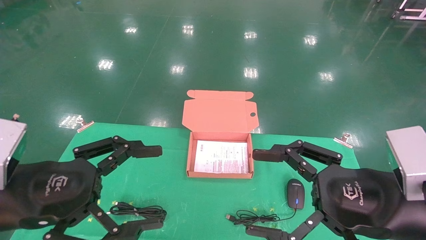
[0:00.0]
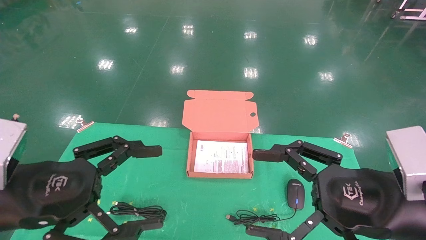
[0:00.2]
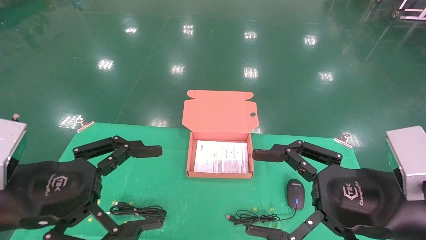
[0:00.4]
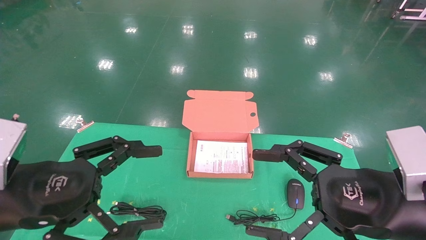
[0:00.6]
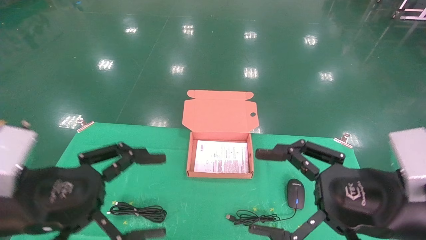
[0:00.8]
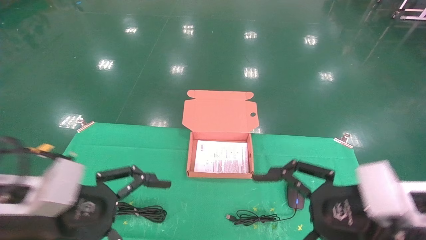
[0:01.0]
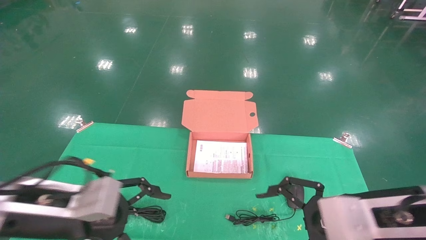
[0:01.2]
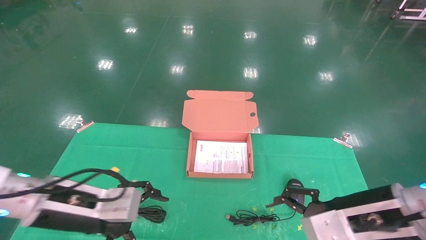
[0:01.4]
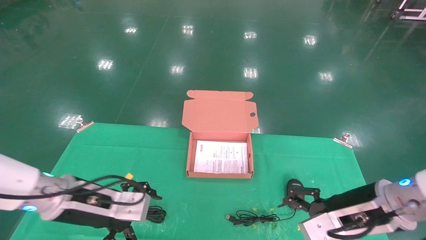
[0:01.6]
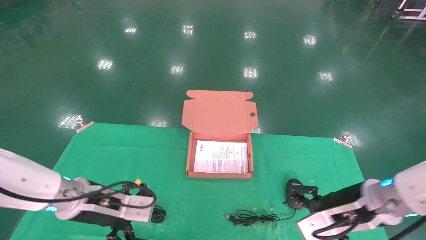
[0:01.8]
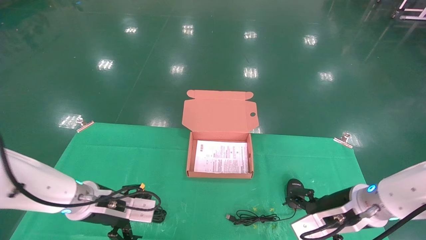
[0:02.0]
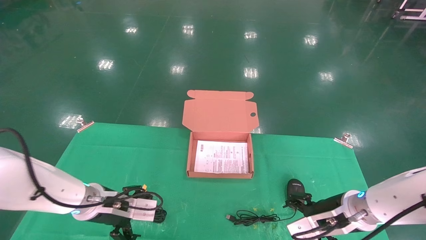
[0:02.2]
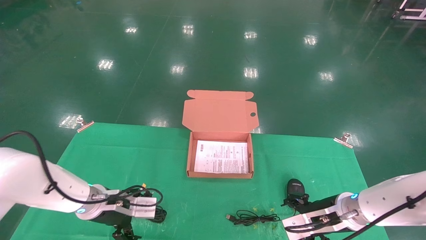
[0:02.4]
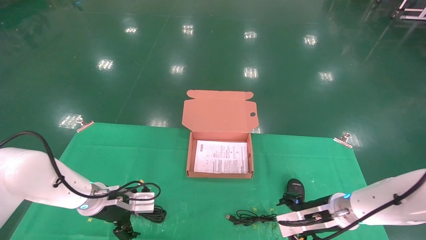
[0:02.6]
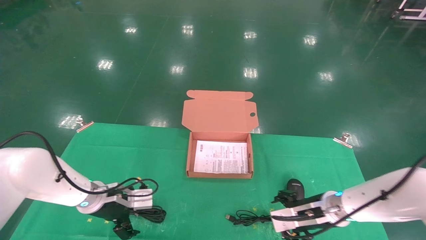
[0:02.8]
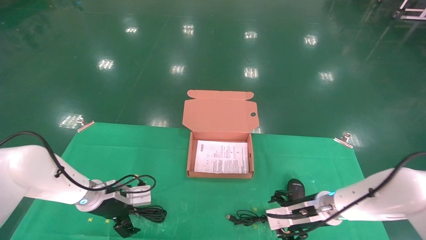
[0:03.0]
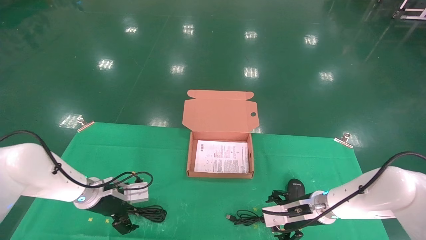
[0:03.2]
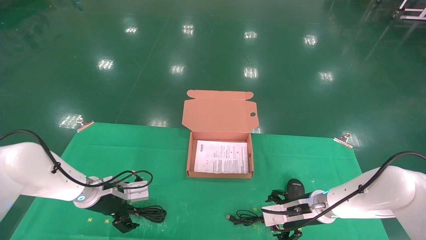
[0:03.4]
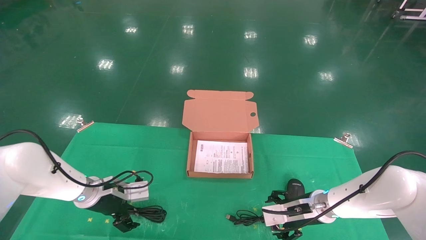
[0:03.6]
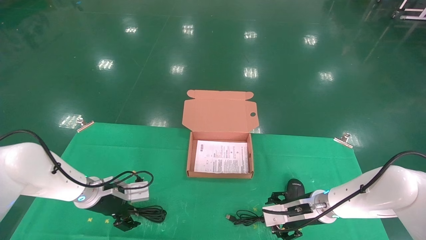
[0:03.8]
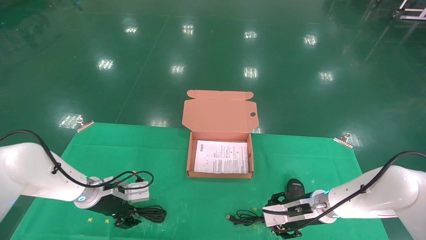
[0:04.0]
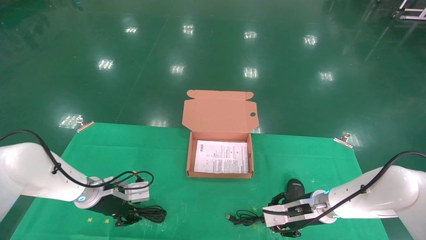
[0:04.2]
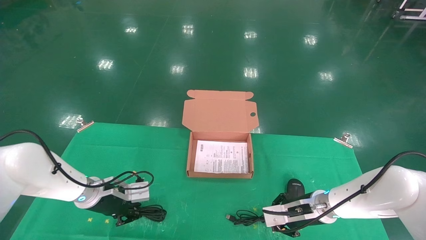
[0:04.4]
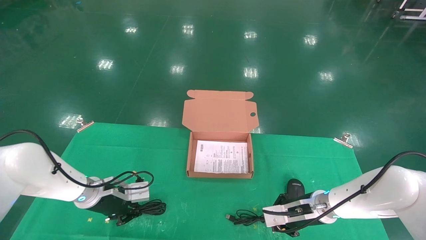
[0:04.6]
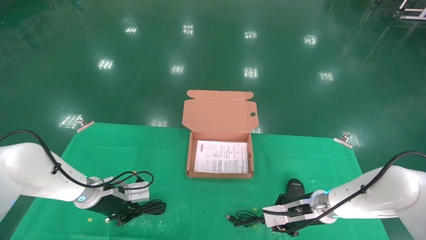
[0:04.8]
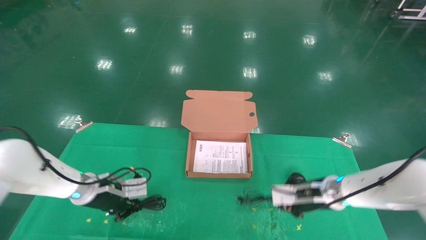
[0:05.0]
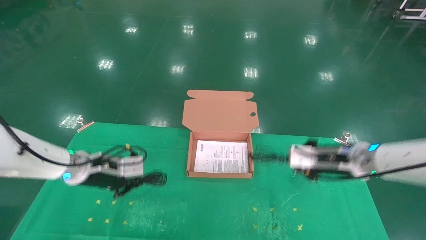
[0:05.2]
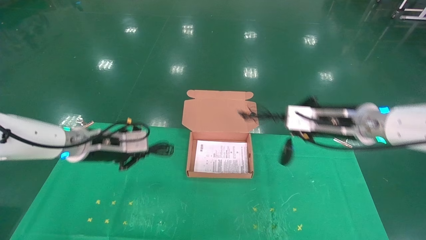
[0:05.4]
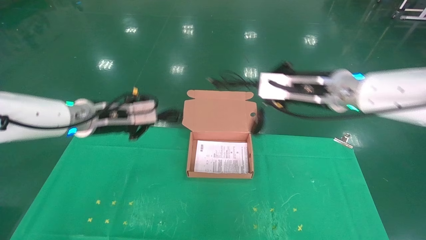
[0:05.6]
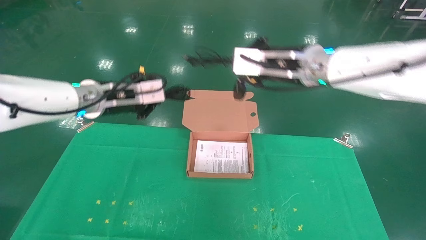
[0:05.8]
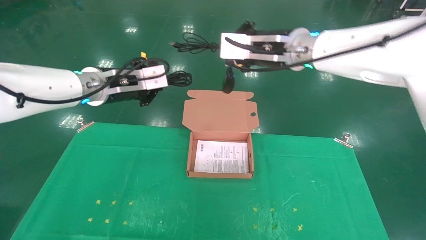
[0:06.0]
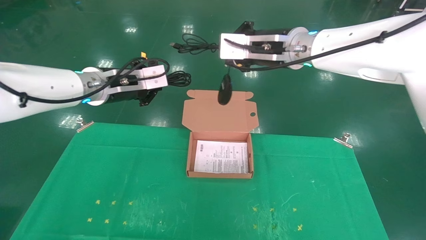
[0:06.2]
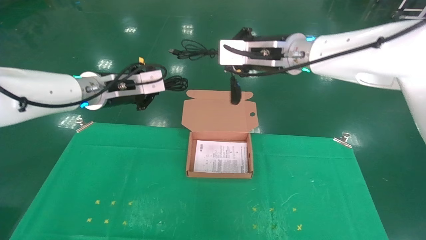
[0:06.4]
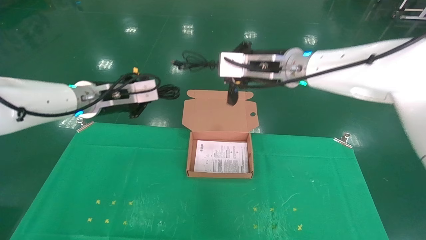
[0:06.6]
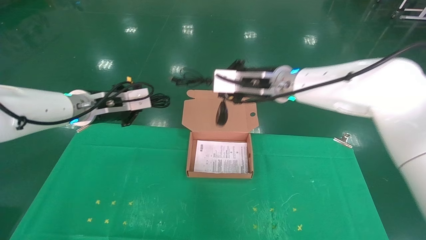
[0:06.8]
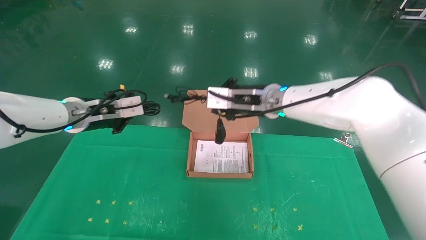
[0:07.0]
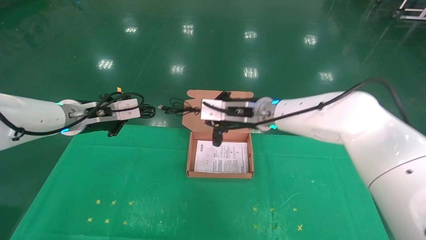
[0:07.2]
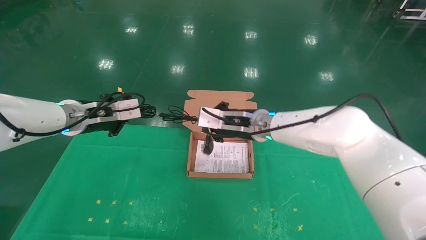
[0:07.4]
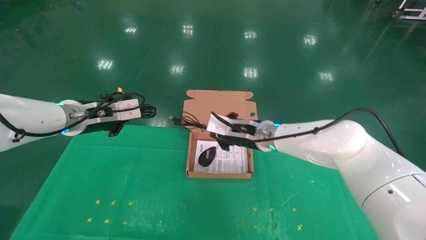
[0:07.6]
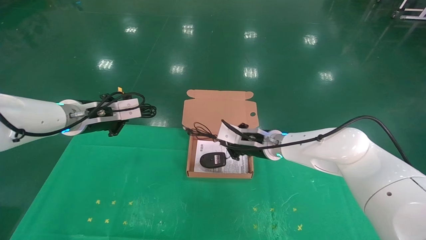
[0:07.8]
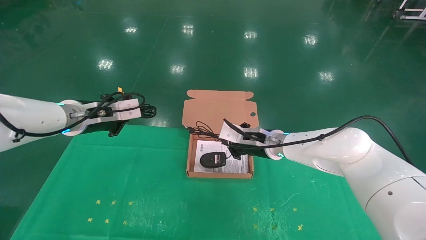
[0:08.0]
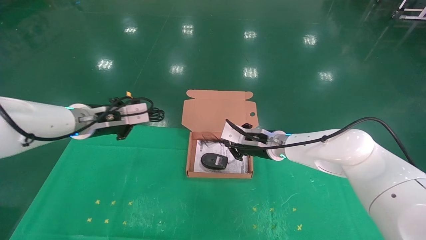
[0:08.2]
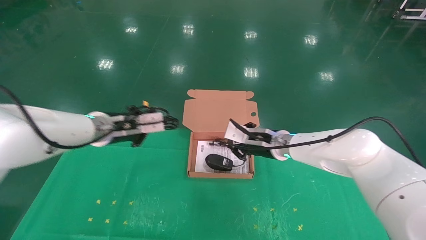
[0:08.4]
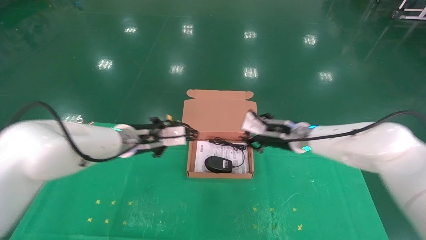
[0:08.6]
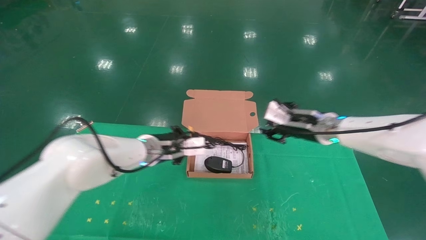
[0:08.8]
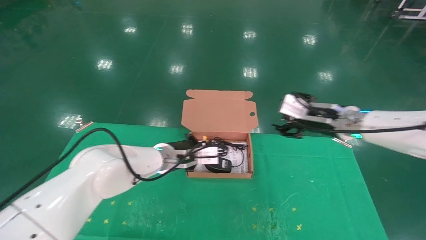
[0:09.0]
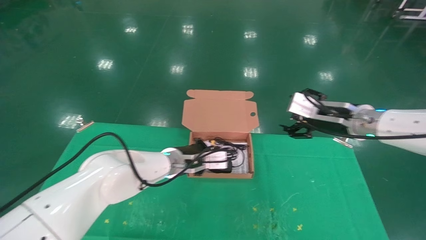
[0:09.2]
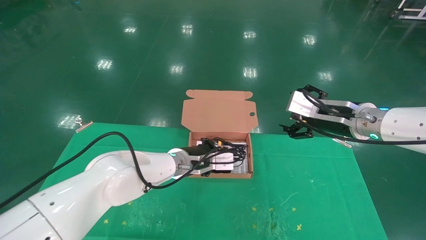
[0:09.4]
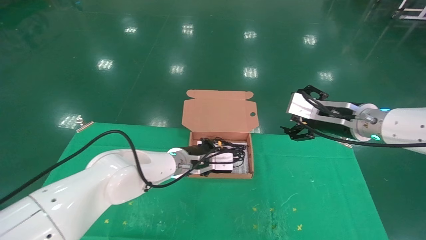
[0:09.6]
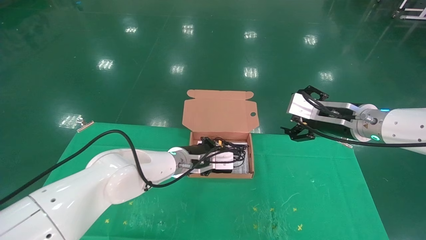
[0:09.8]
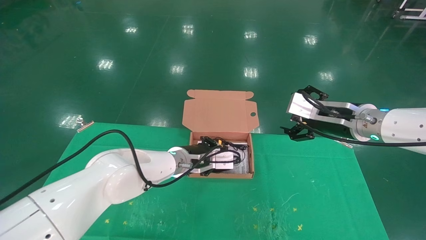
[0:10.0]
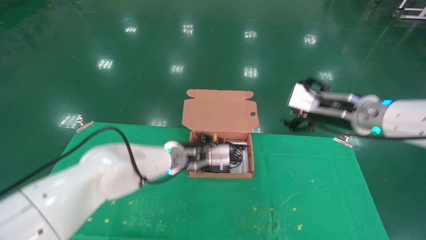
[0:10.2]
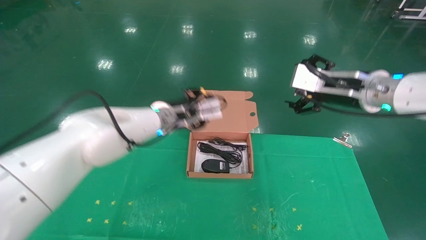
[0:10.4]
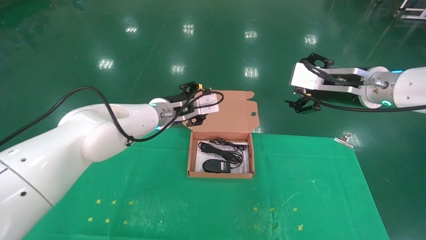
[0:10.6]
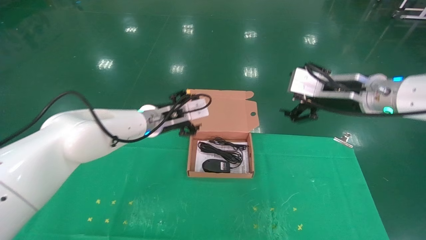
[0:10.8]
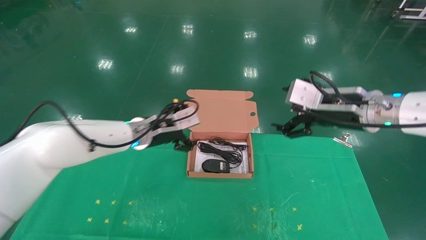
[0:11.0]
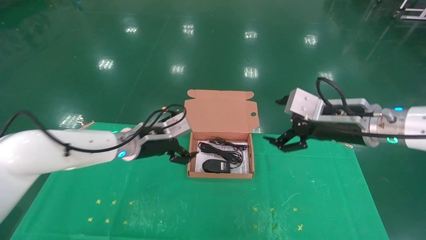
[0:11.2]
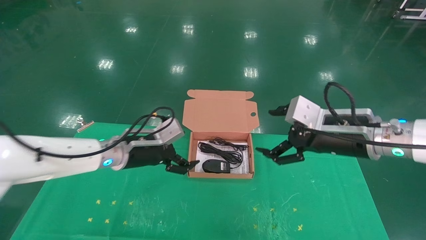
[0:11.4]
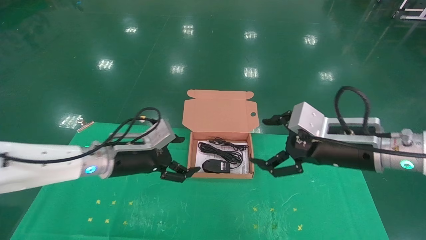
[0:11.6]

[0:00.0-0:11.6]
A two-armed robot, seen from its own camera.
Task of the whole recording: grasp data cable left put into box grasp mouse right put into box.
Step, 0:00.6 to 0:04.6: Grab and pick up both the mouse and power cord from the accessory packaging area at the same time.
Step, 0:04.8 to 0:09.6: Place the mouse and power cord into the box.
0:00.0 to 0:01.4: The left gripper is displaced forward and downward by about 10 cm; the right gripper travels forward by approximately 5 cm.
0:01.4 to 0:02.8: The two grippers go approximately 20 cm forward and downward.
0:02.8 to 0:04.4: The left gripper closes up; the right gripper closes up.
0:04.4 to 0:05.8: The two grippers go about 25 cm upward. The right gripper closes.
0:05.8 to 0:07.2: The left gripper changes place by about 5 cm; the right gripper goes about 15 cm downward, to the left and forward.
0:07.2 to 0:08.8: The left gripper goes some 15 cm to the right and downward; the right gripper shifts approximately 15 cm to the right, and opens up.
0:08.8 to 0:10.2: The right gripper heads backward and upward, covering about 10 cm, and opens its fingers. The left gripper shifts some 5 cm to the right.
0:10.2 to 0:11.6: The left gripper travels to the left and backward by approximately 15 cm, and opens its fingers; the right gripper goes some 5 cm backward.

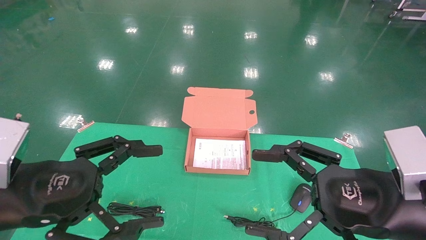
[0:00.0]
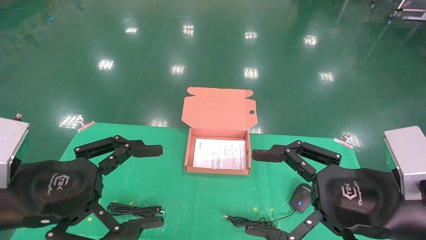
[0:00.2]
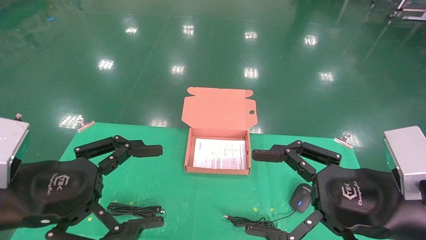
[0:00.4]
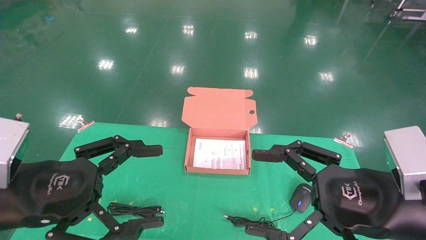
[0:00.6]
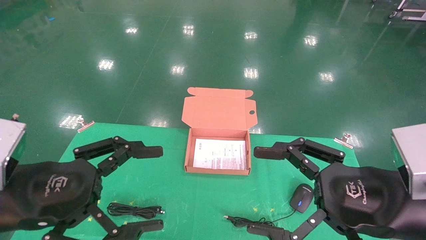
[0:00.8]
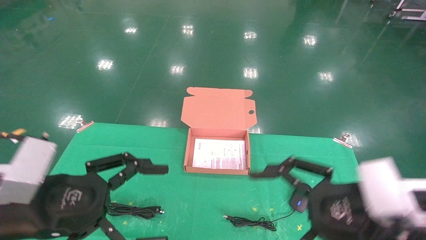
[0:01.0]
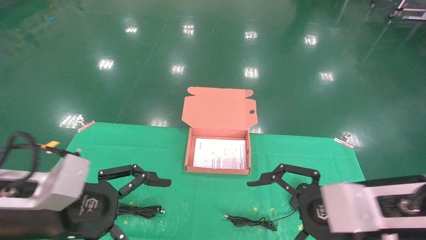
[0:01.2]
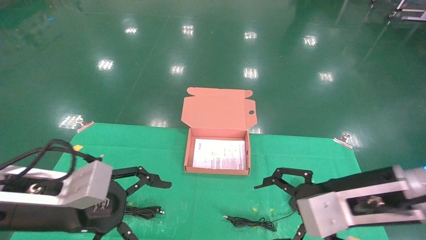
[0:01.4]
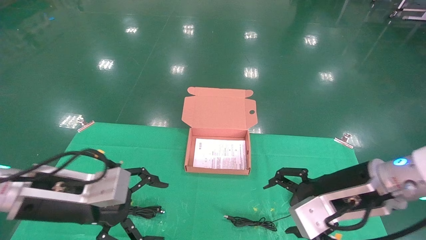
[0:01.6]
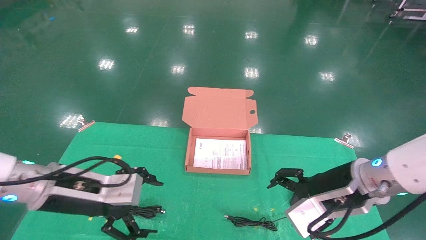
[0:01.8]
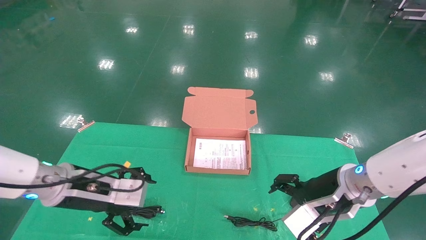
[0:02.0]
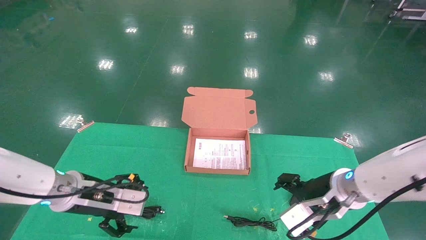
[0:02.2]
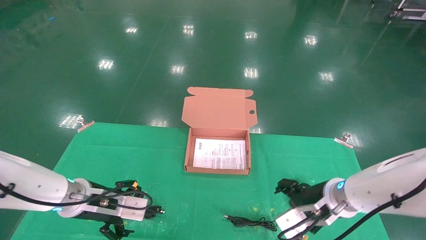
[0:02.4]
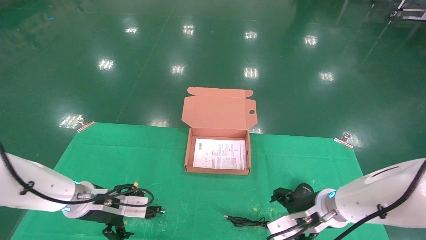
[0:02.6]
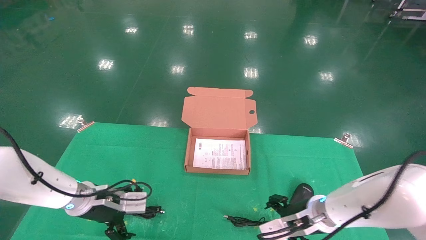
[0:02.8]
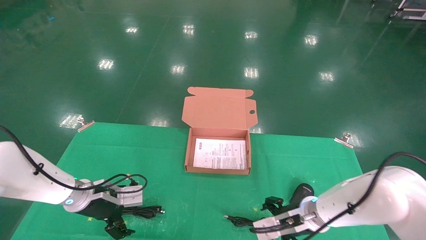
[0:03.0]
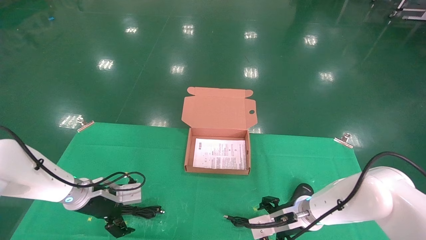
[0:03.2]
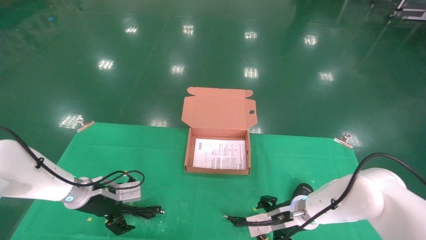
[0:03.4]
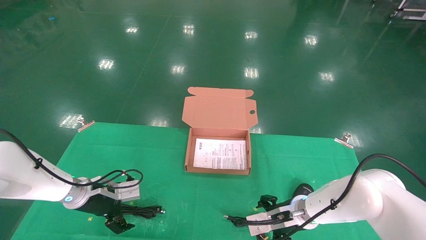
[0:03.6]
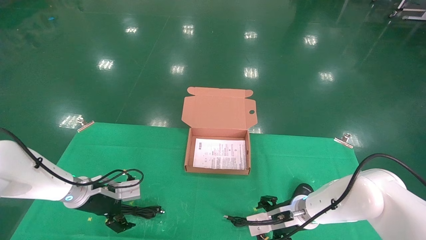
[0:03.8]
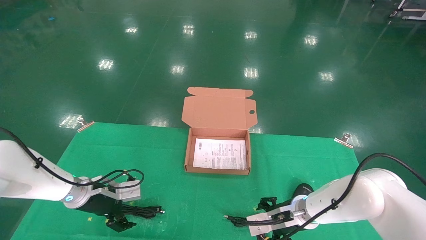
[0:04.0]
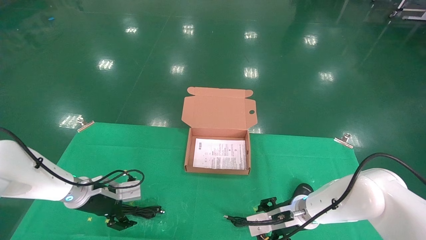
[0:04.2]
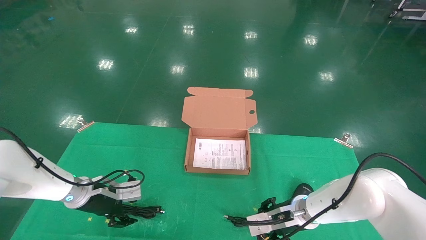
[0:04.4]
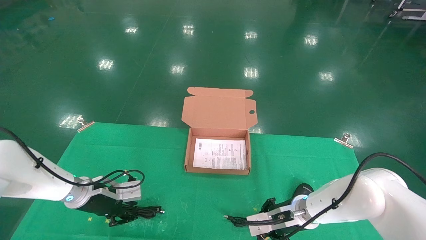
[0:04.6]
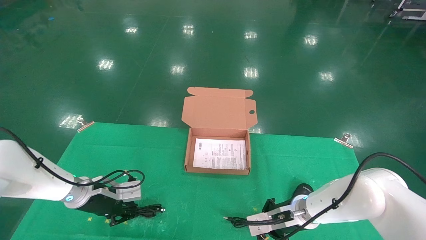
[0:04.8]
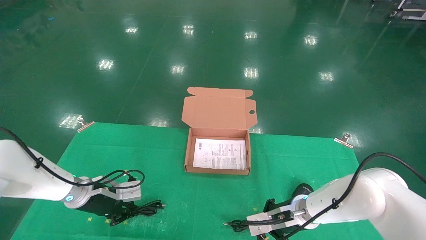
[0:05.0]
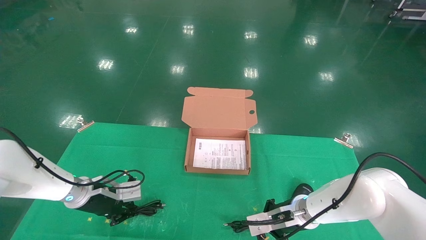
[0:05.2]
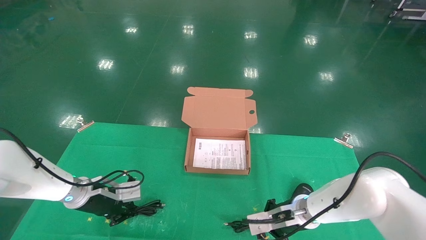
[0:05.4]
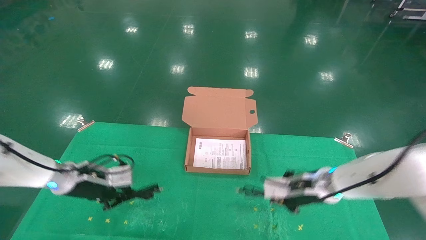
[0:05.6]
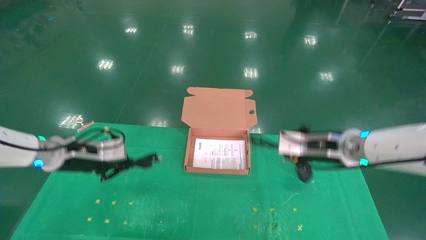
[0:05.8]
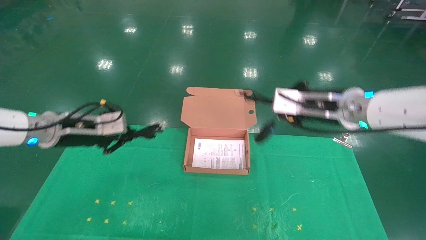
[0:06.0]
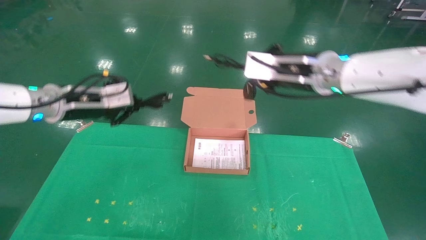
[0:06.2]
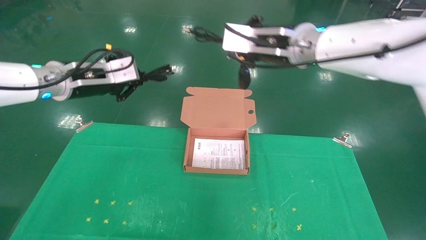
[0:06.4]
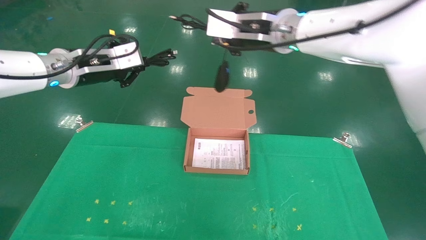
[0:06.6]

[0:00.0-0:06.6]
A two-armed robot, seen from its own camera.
Task of the whole recording: grasp data cable left put into box grasp mouse right put into box.
Step, 0:00.8 to 0:05.2: Grab and pick up both the mouse and power cord from the accessory packaging area at the same time.
0:00.0 to 0:01.6: The grippers both shift forward by some 10 cm.
0:01.6 to 0:03.2: The left gripper travels forward and downward by about 20 cm, while the right gripper moves downward and forward, roughly 20 cm.
0:03.2 to 0:05.0: The left gripper closes; the right gripper closes its fingers.
0:05.0 to 0:06.6: The two grippers go roughly 35 cm upward.
